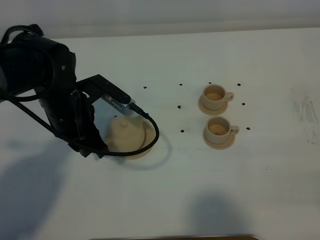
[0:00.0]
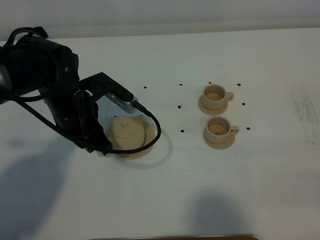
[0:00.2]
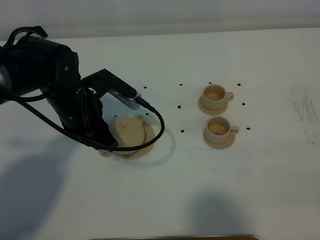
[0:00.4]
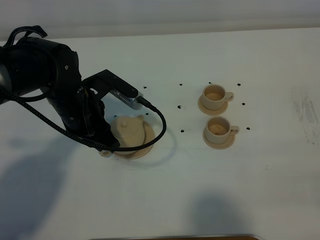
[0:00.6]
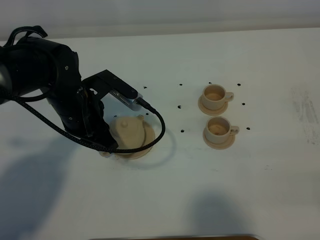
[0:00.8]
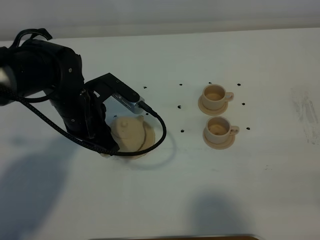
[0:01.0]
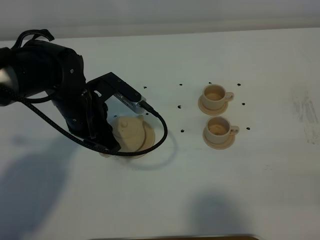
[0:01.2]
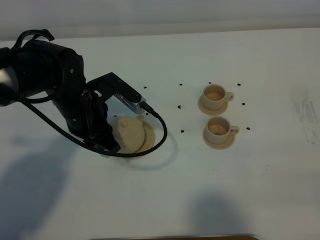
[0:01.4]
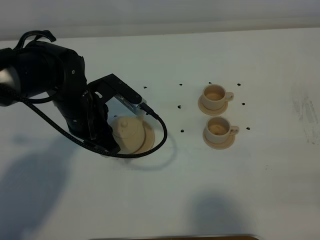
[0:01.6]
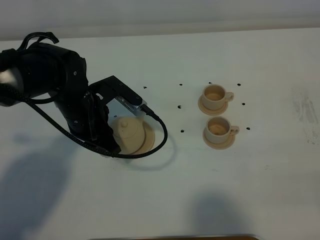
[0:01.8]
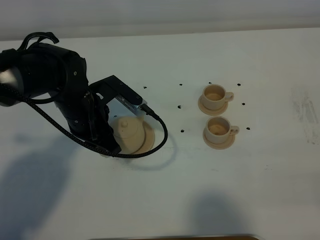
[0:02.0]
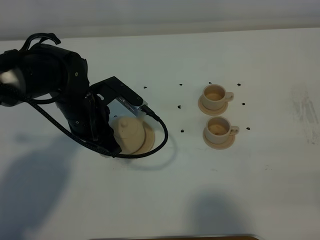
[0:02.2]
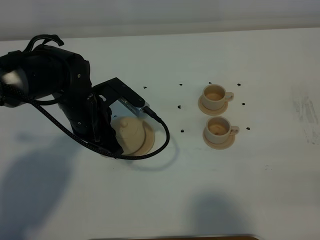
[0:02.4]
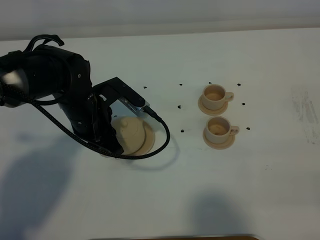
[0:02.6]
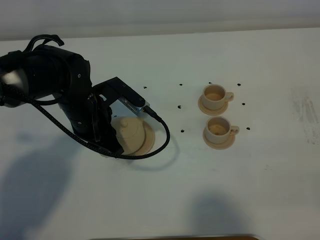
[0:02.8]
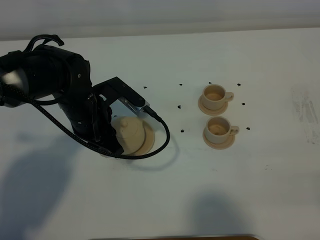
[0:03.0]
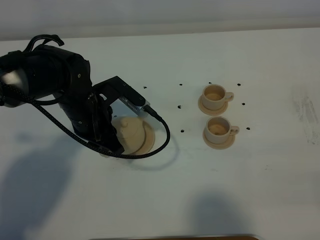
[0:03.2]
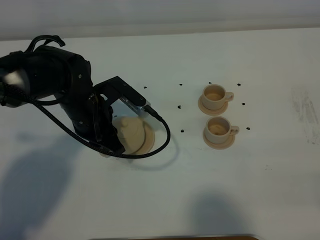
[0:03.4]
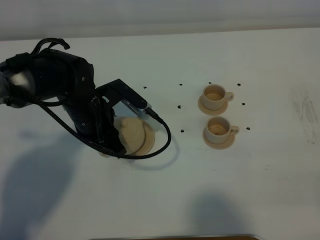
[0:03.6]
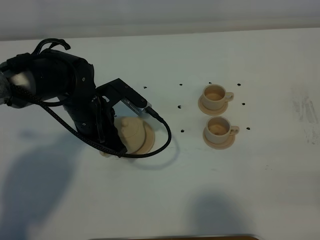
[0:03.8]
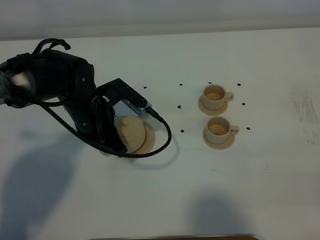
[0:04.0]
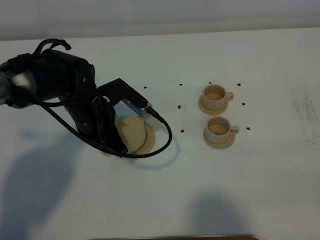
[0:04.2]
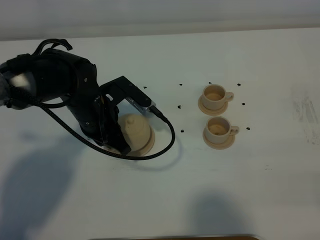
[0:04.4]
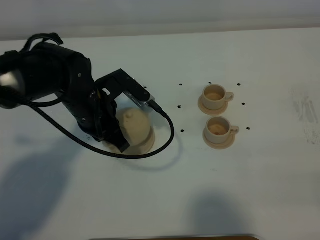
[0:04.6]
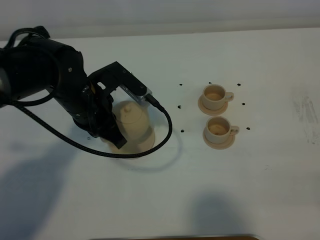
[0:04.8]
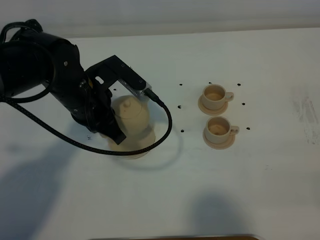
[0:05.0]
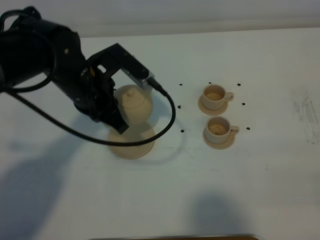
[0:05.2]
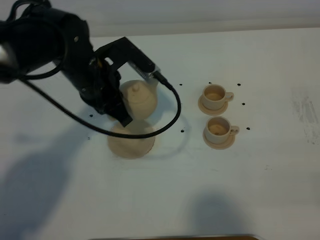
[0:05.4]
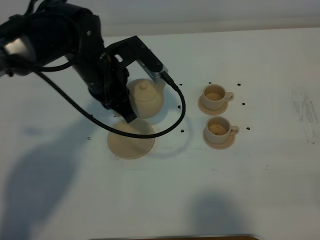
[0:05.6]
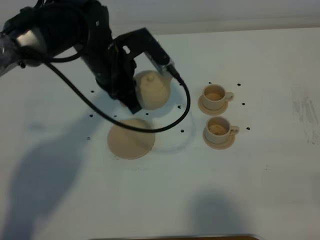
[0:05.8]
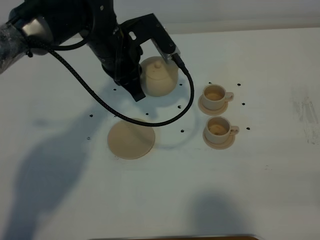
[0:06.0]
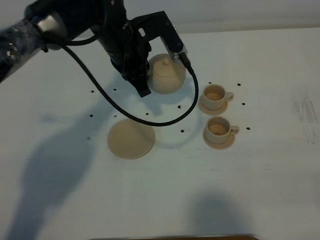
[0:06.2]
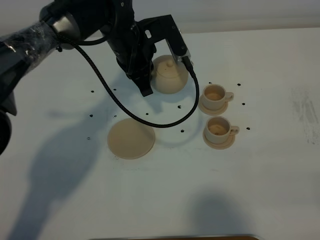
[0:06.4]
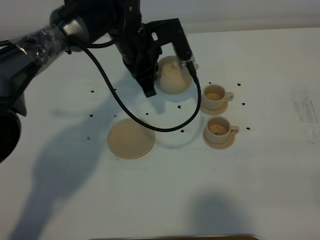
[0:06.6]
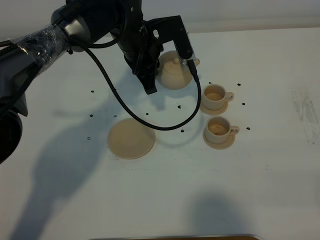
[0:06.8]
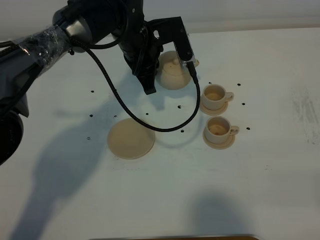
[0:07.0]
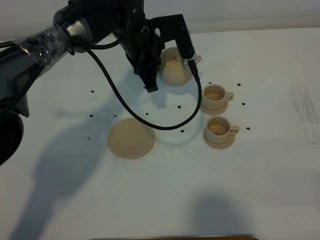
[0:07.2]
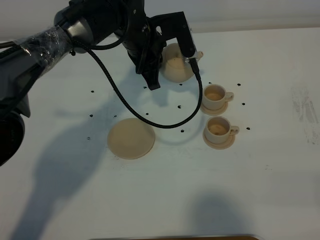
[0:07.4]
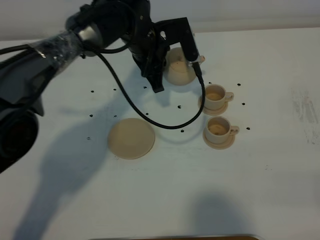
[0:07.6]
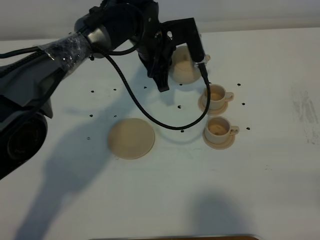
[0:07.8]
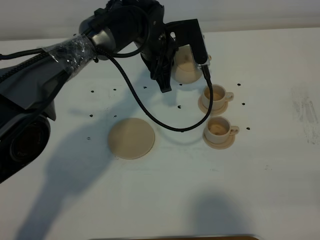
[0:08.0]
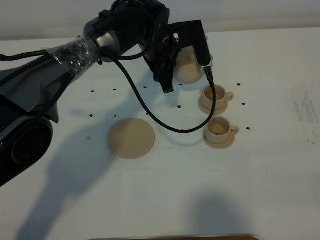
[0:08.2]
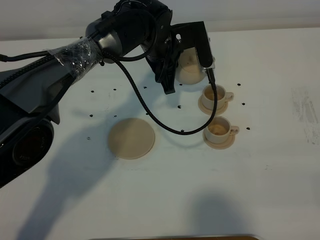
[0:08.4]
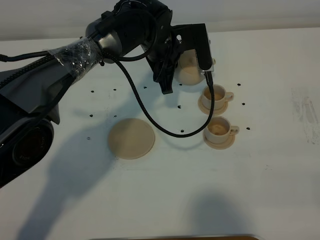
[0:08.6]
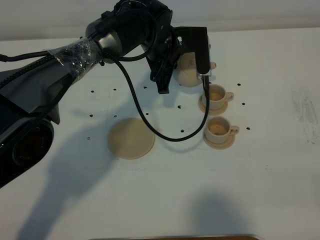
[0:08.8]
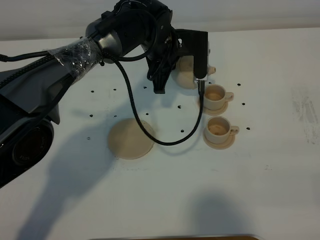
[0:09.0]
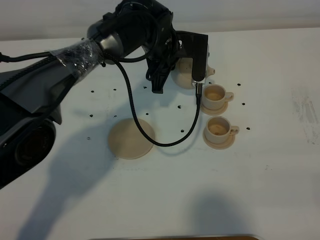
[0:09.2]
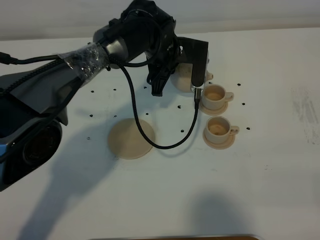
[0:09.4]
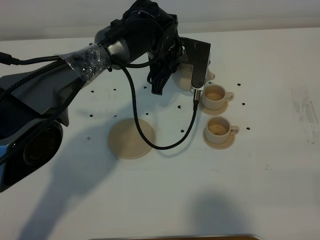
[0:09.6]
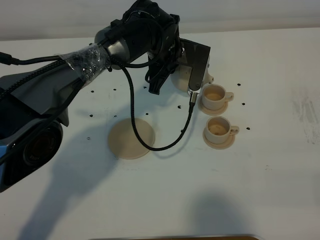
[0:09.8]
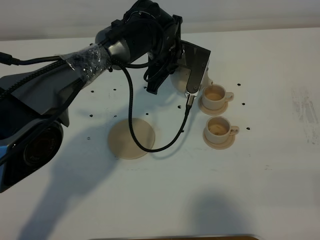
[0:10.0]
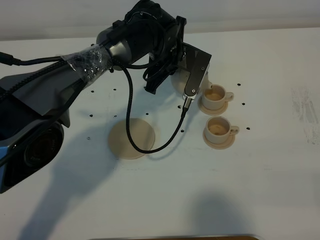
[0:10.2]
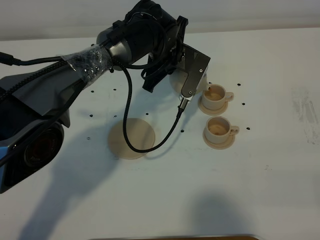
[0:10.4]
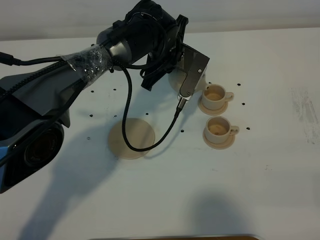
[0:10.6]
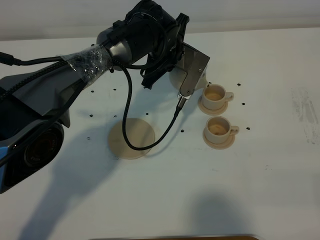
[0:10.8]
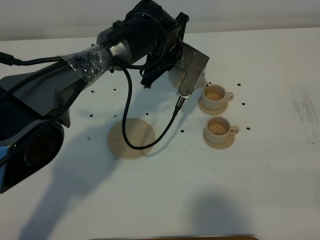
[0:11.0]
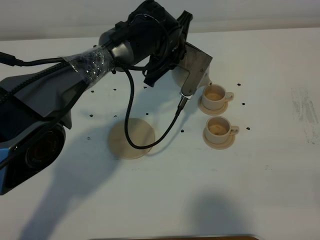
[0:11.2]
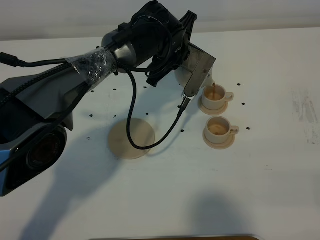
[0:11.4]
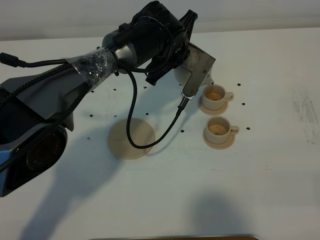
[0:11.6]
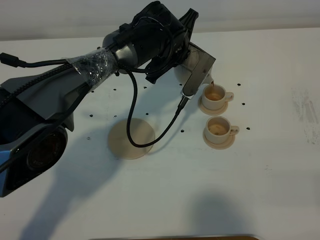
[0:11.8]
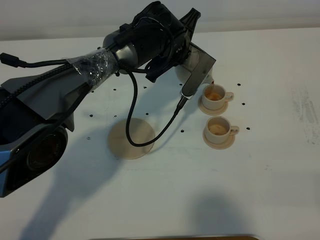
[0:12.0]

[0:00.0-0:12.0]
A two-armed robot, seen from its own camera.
Task of the whole recording: grasp the brown teapot and pour the tea into the two brown teacups one by one, put the brown teapot back in its original place.
Step, 0:00.0 to 0:02.2: Pick up the teapot with the left gripper.
0:00.0 to 0:01.6: The grippers move only a little.
0:01.6 to 0:03.0: The two grippers keep their place.
0:03.0 to 0:04.4: The left gripper closes.
0:04.4 to 0:06.0: The left gripper moves upward and forward, roughly 10 cm.
0:06.0 to 0:07.6: The left gripper shifts approximately 5 cm forward.
0:10.4 to 0:12.0: There are only small adjustments of the grippers.

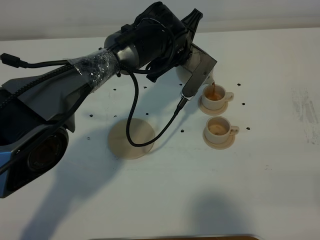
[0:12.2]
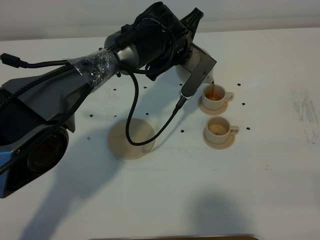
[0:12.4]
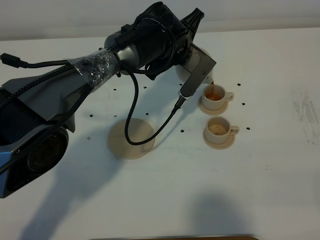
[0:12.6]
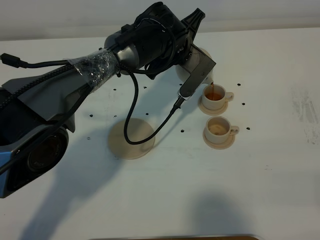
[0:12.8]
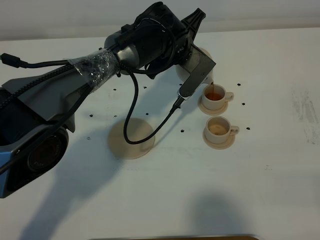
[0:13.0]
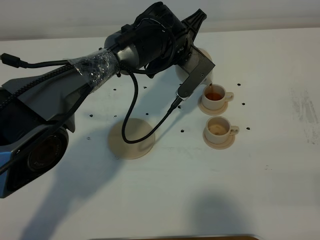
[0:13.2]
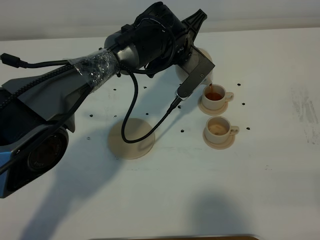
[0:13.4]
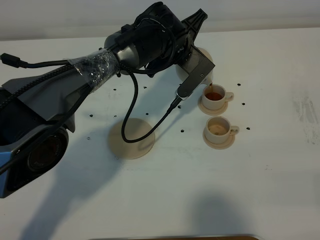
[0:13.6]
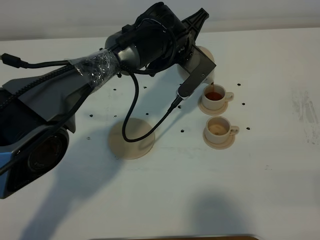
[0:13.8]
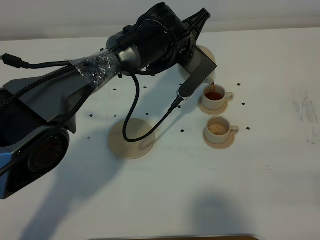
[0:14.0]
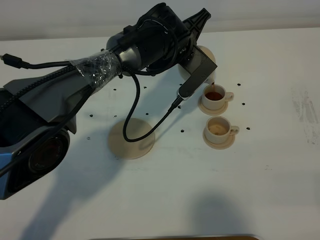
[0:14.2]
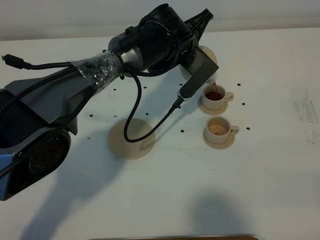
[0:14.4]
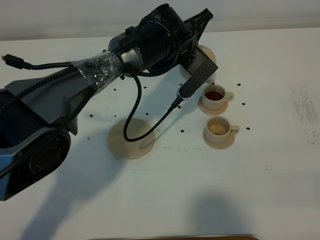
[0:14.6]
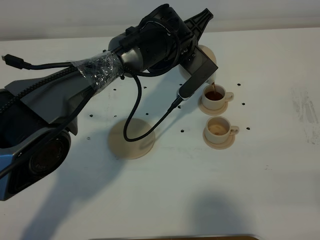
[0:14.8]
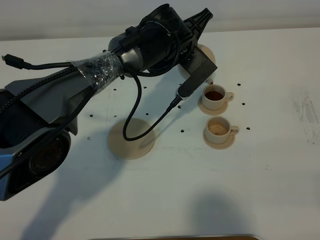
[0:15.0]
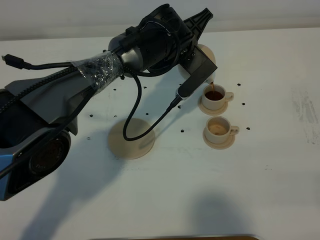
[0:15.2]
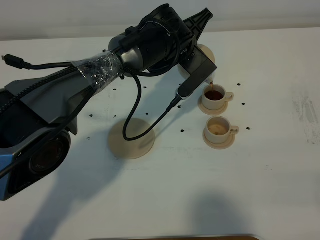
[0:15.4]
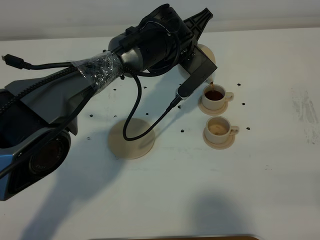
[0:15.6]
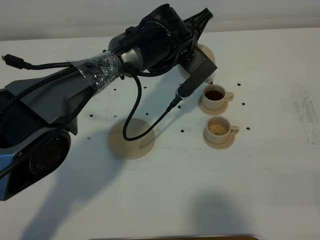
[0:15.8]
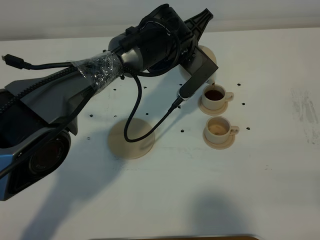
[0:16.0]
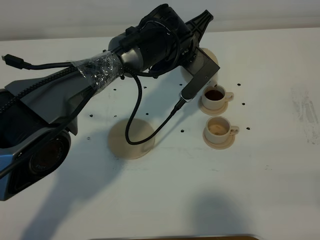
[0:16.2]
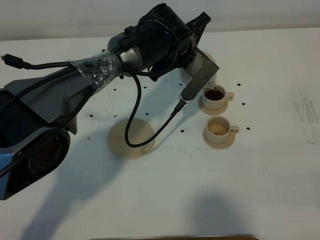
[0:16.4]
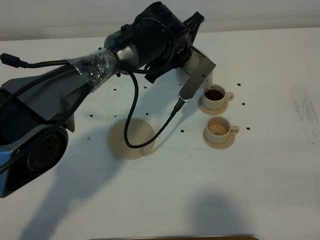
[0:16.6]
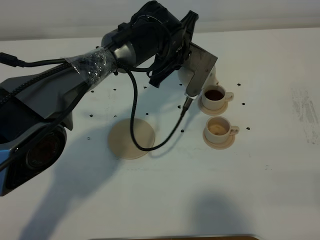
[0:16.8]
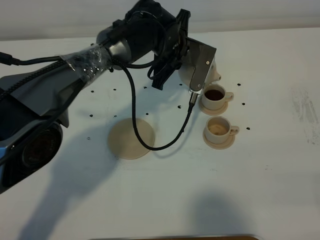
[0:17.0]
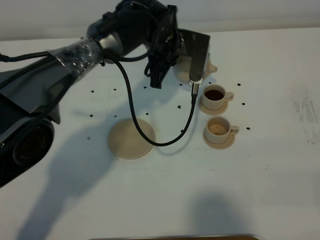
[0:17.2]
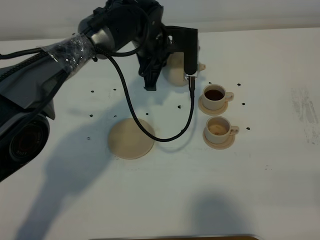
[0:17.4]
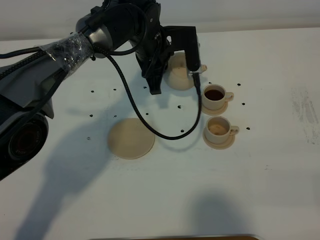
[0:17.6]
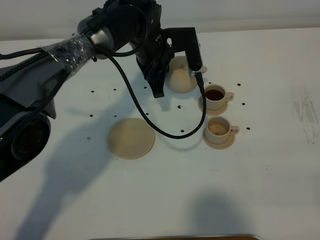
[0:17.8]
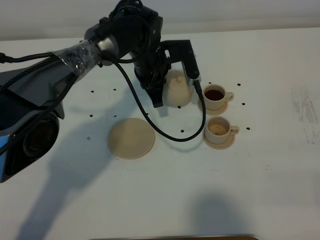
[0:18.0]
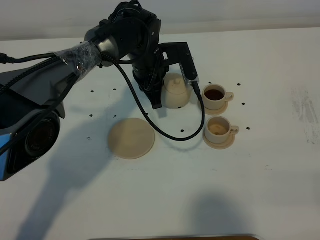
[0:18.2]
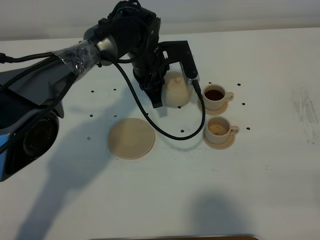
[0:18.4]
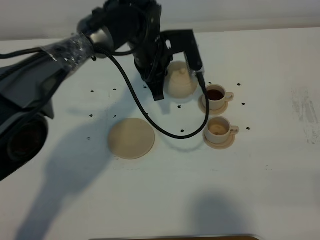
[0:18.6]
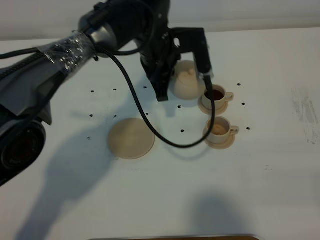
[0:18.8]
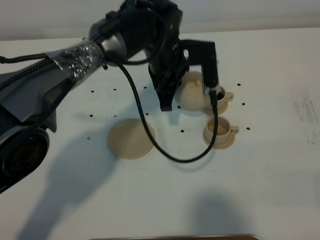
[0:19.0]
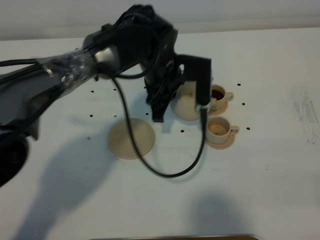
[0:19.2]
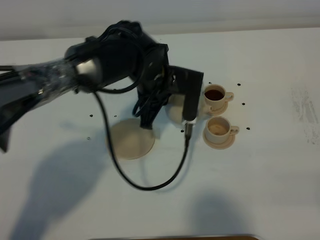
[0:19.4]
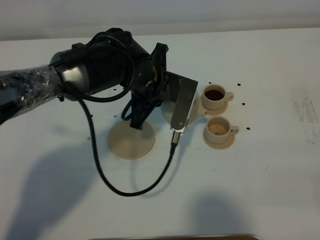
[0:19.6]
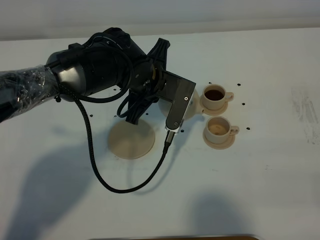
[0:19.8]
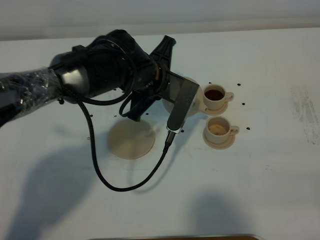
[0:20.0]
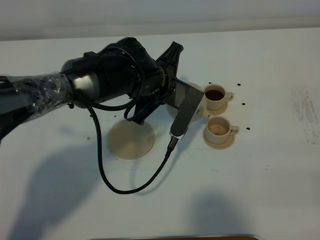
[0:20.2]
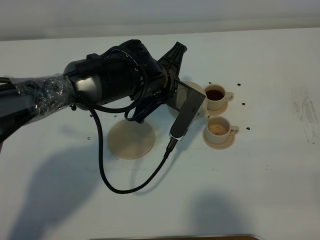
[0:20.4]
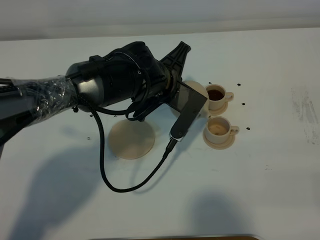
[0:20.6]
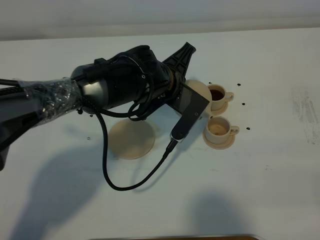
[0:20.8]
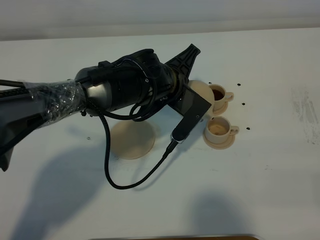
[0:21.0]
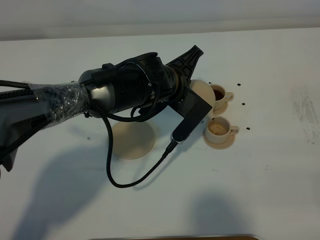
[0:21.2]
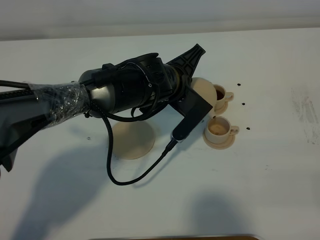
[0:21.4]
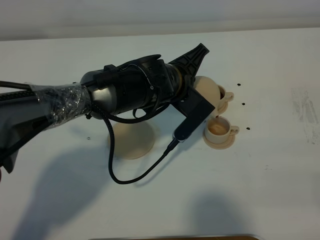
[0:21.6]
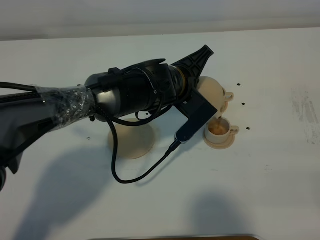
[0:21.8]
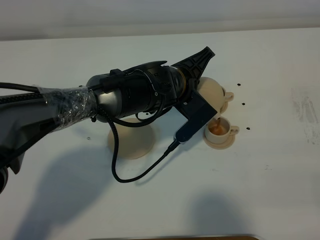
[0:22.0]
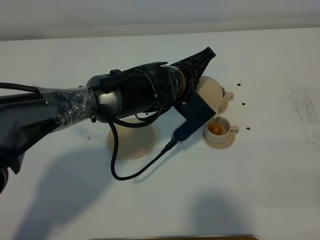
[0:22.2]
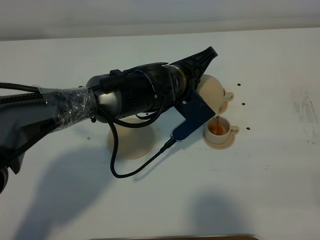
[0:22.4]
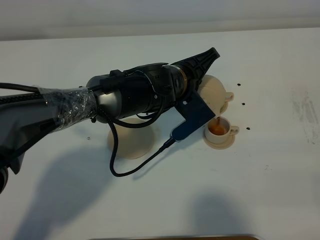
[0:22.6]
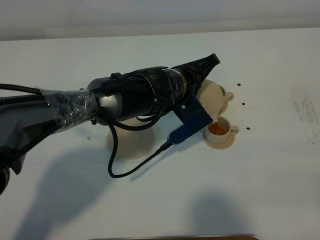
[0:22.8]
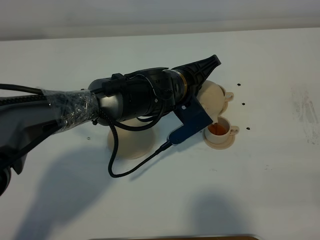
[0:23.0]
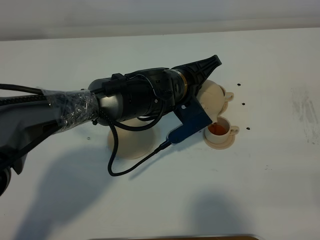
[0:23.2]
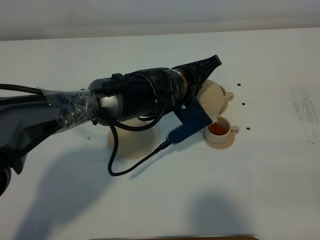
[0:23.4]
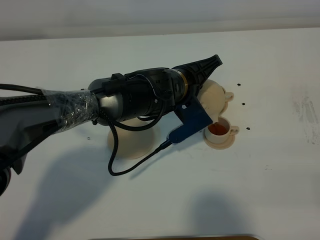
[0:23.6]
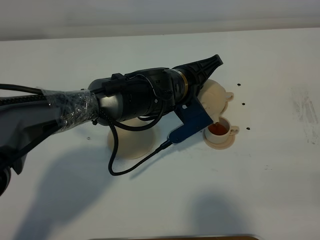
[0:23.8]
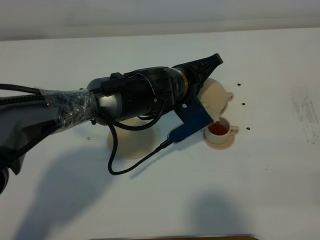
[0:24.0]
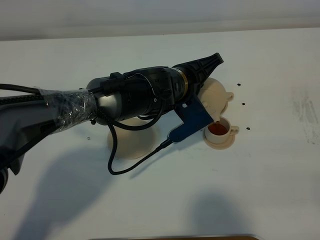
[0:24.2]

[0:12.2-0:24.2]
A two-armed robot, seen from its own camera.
Task of the whole recording: grasp the brown teapot and pour the tea into the two brown teacups one by one, put the brown teapot back in its original place.
0:12.2 to 0:13.8: The grippers stay close to where they were, moving slightly.
0:13.8 to 0:15.2: Both grippers stay put.
0:15.2 to 0:16.6: The grippers make only small movements.
0:16.6 to 0:18.2: The left gripper moves to the left, roughly 5 cm.
0:18.2 to 0:19.8: The left gripper shifts roughly 10 cm backward.
0:21.2 to 0:22.6: The grippers move only a little.
0:22.6 to 0:24.2: Neither gripper changes place.
